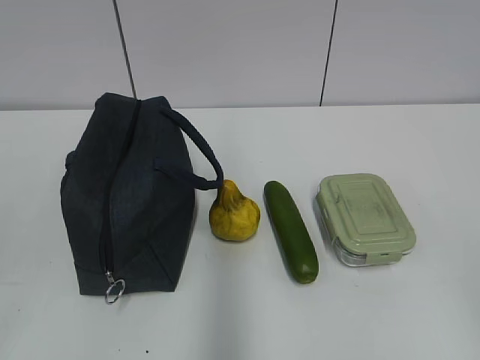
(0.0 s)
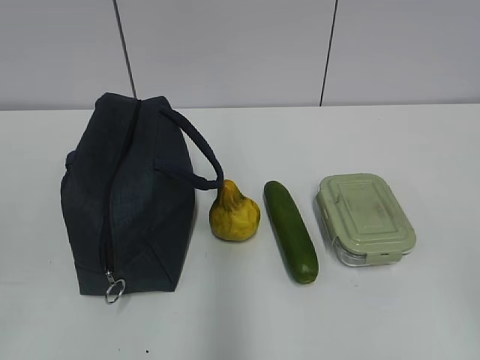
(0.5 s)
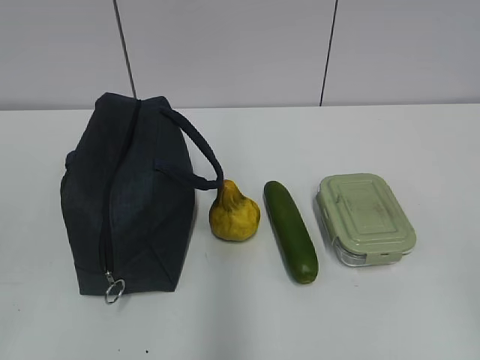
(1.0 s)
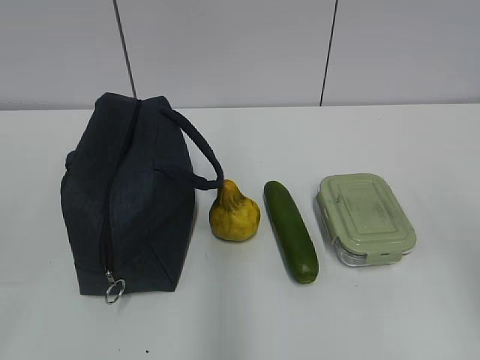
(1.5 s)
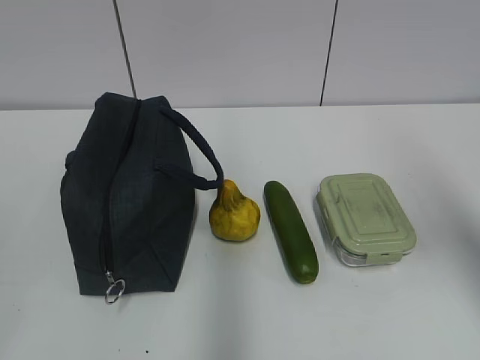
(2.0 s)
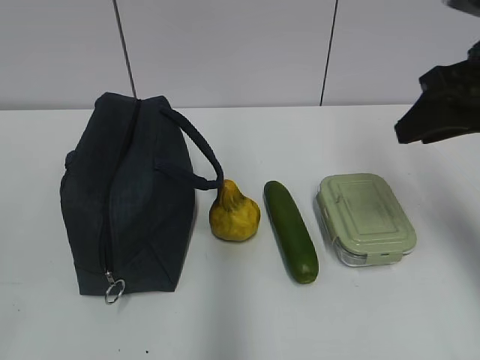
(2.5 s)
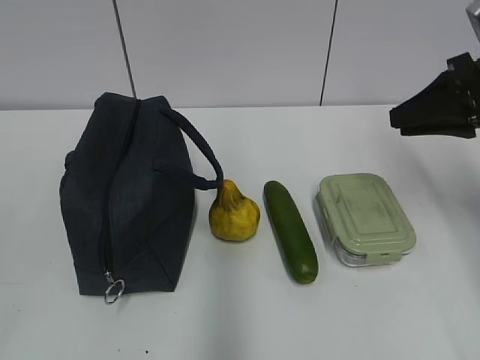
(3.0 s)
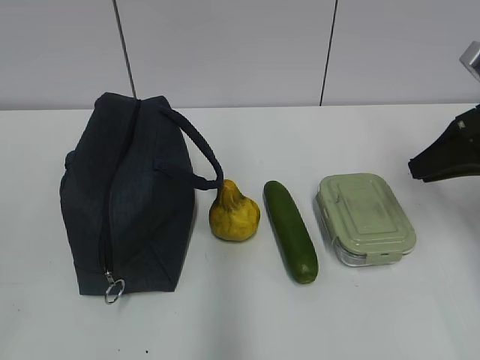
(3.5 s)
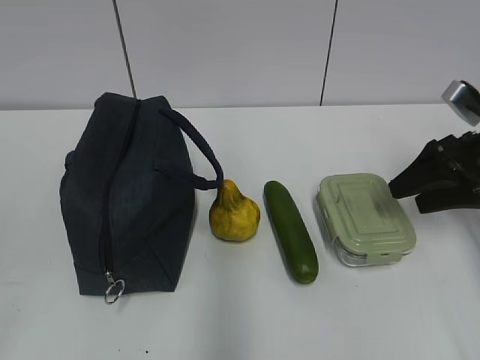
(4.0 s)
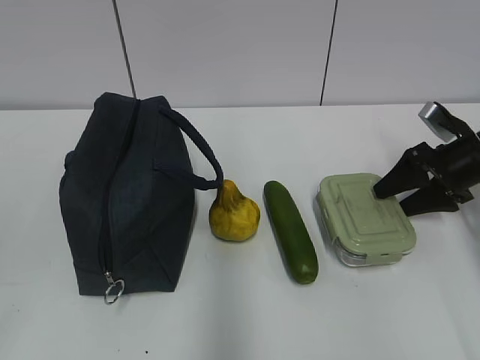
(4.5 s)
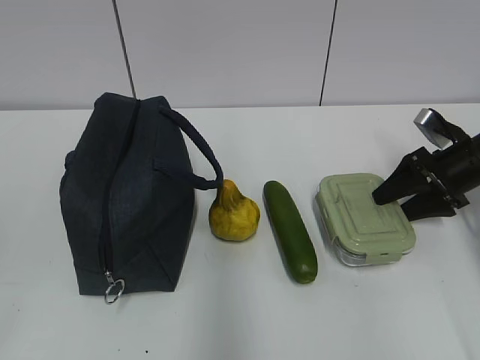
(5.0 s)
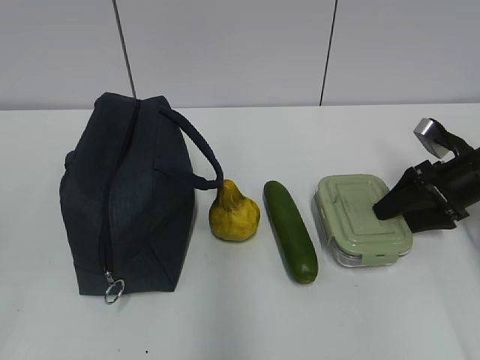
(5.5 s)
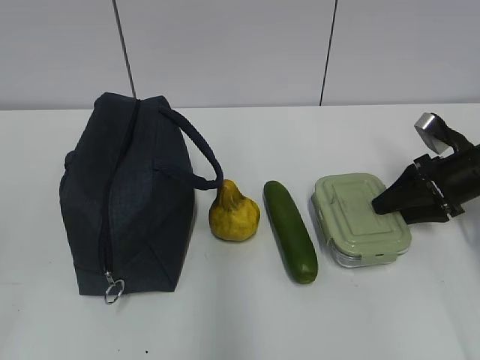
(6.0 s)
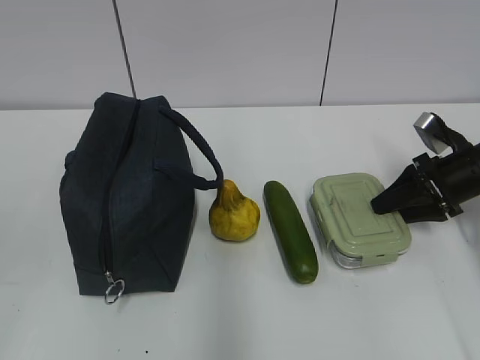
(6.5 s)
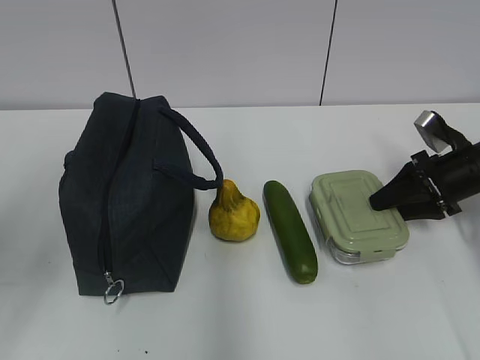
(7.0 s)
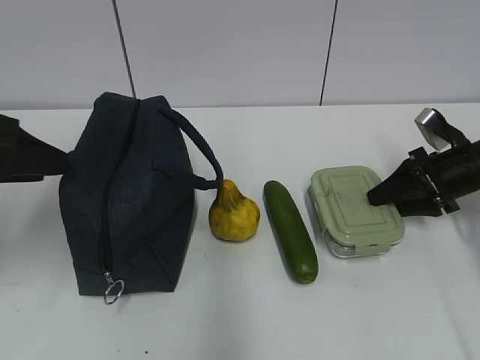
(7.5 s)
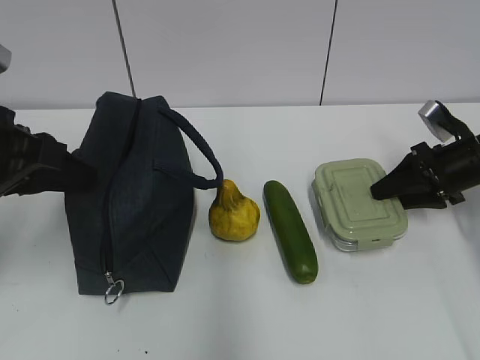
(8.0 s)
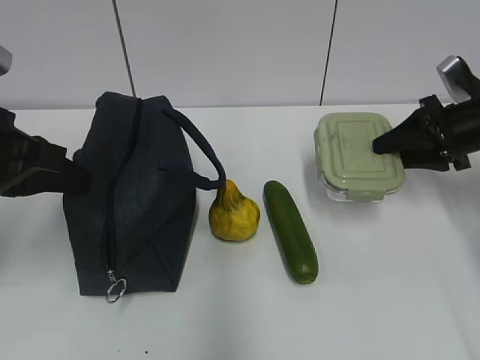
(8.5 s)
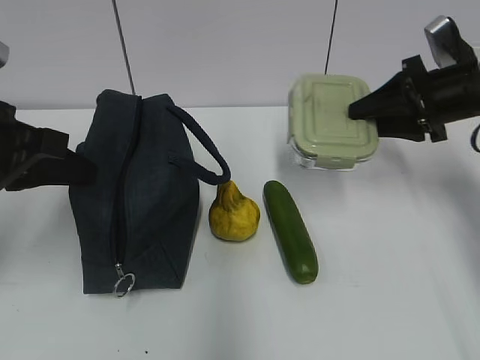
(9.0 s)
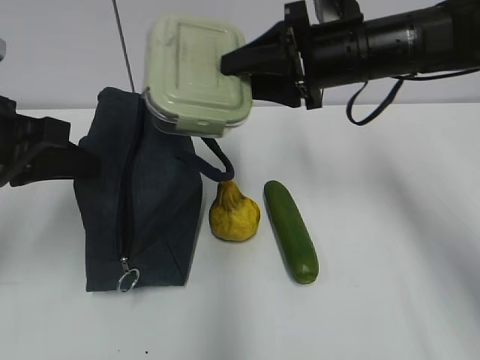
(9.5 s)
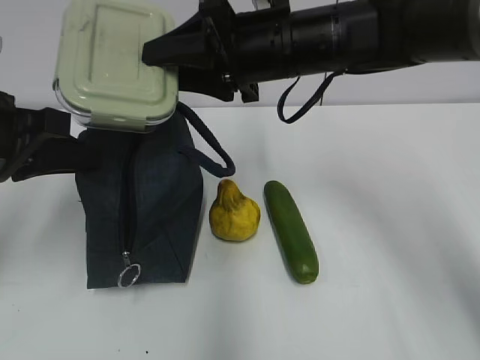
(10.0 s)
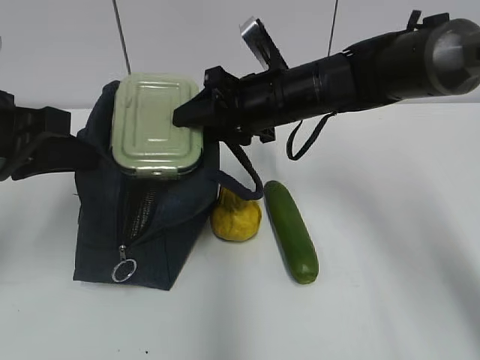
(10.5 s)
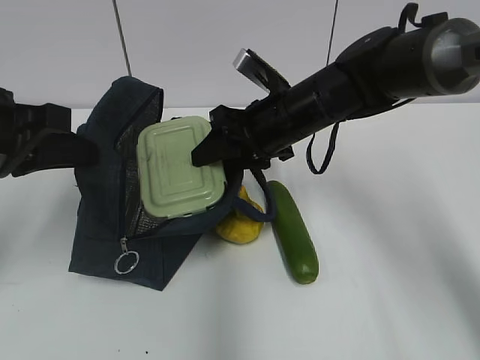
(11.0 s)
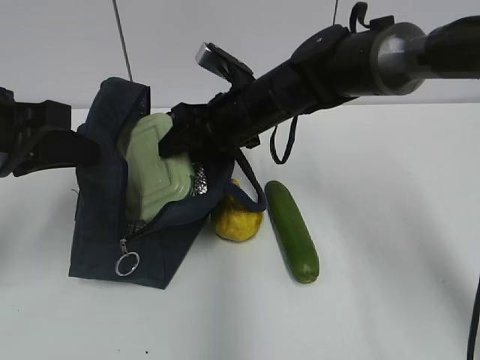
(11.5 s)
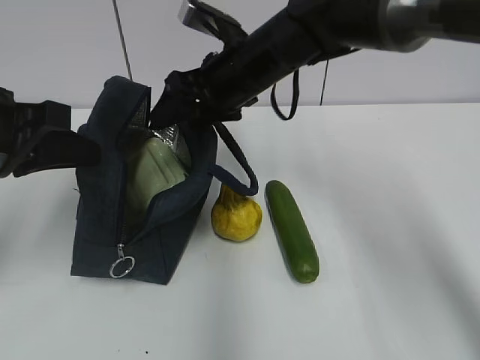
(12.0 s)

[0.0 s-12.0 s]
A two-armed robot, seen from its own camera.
Step, 0.0 to 6.5 s: Grab the lunch box with your right hand.
Step, 7.0 to 10.5 s: Grab the lunch bag with your left hand.
Step, 11.0 to 12.0 s: Place it into the bag with your right hand.
2.0 to 4.0 s: The right gripper goes approximately 25 cm forward and downward, and opens.
4.0 to 6.0 s: The right gripper travels downward by approximately 5 cm.
6.0 to 8.0 s: The left gripper travels forward by roughly 25 cm.
8.0 to 10.0 s: The right gripper travels to the left and upward by roughly 30 cm. Meanwhile the left gripper closes its fingers.

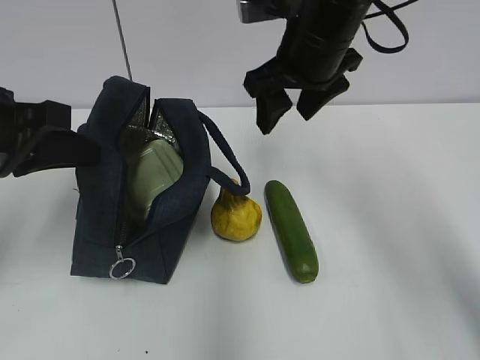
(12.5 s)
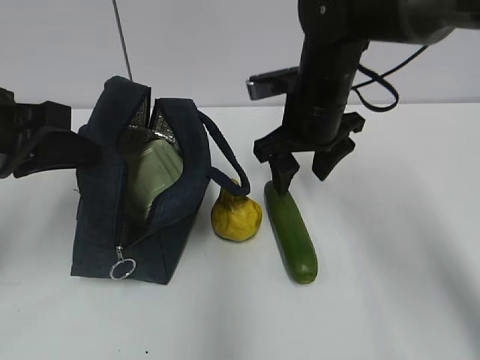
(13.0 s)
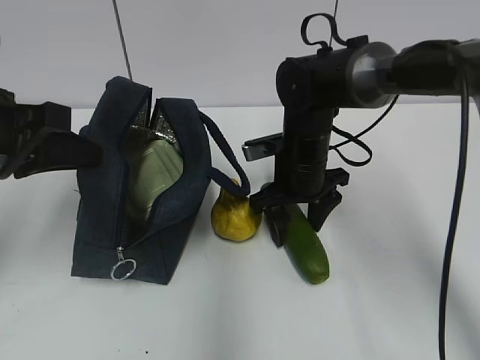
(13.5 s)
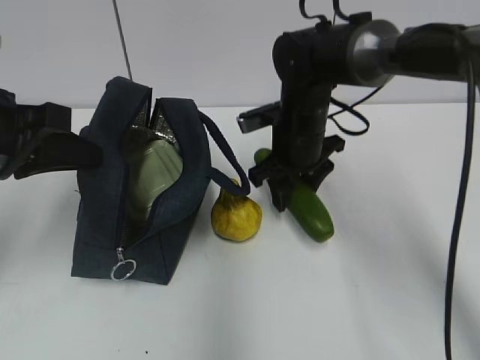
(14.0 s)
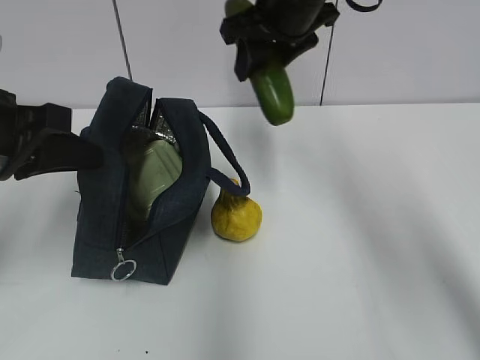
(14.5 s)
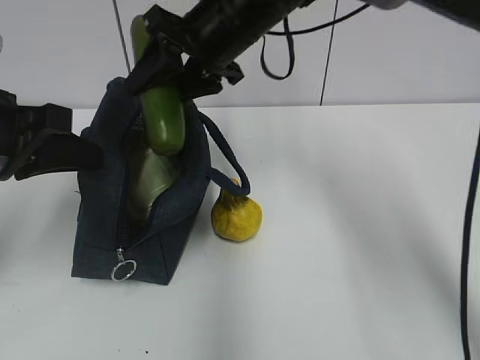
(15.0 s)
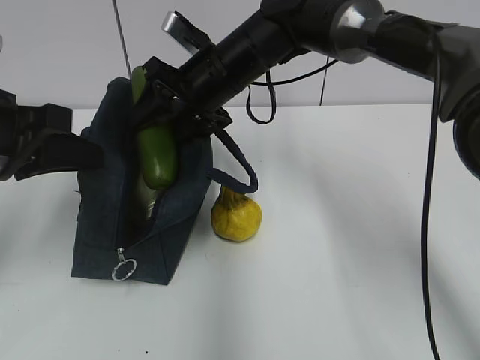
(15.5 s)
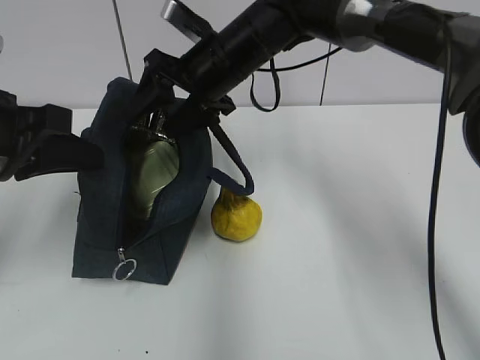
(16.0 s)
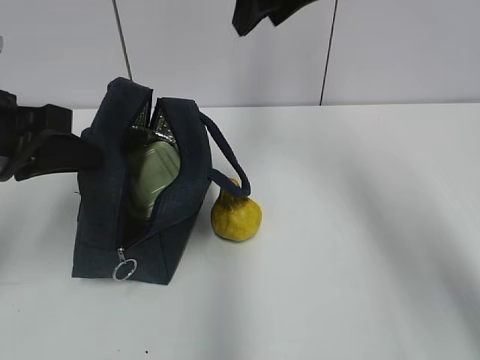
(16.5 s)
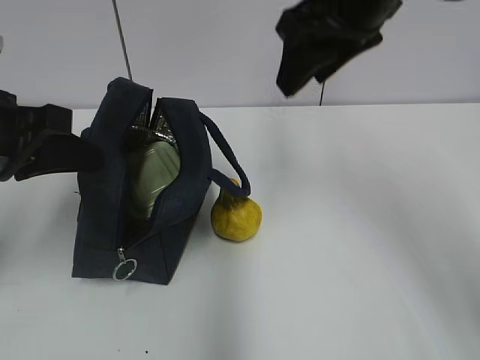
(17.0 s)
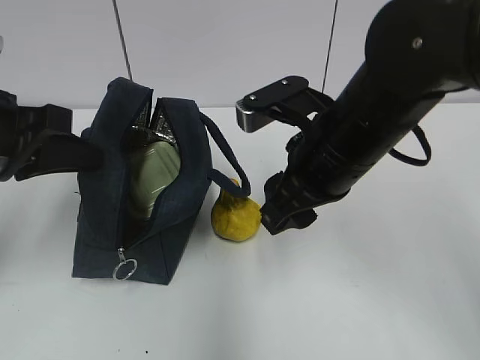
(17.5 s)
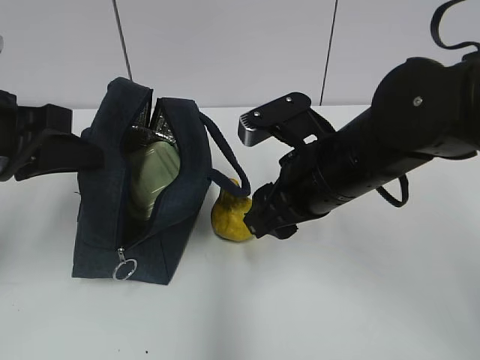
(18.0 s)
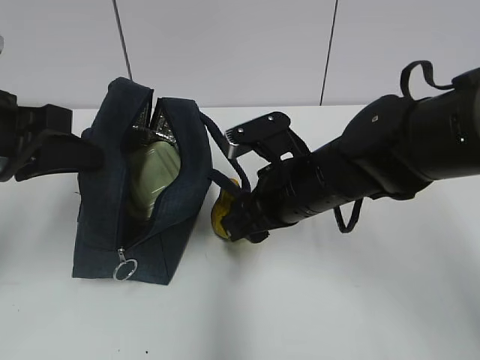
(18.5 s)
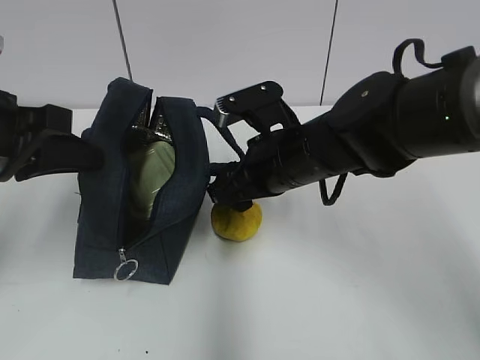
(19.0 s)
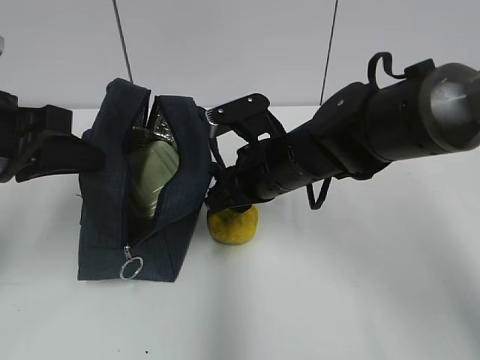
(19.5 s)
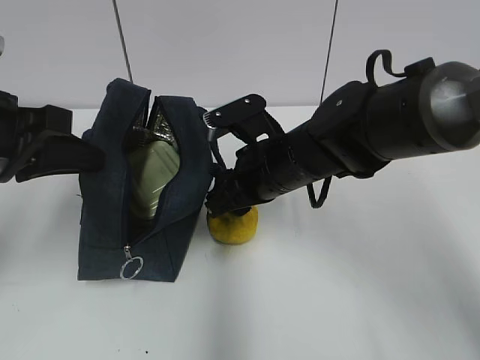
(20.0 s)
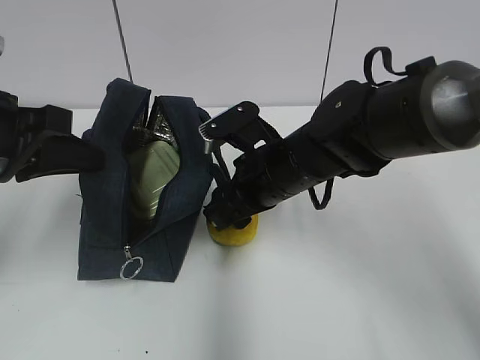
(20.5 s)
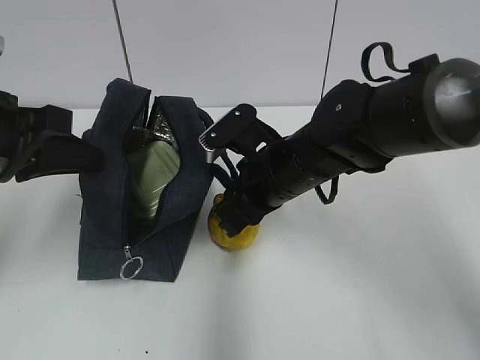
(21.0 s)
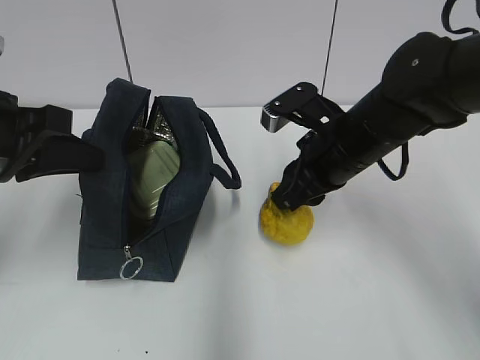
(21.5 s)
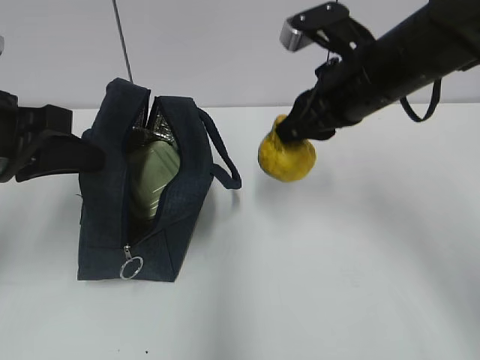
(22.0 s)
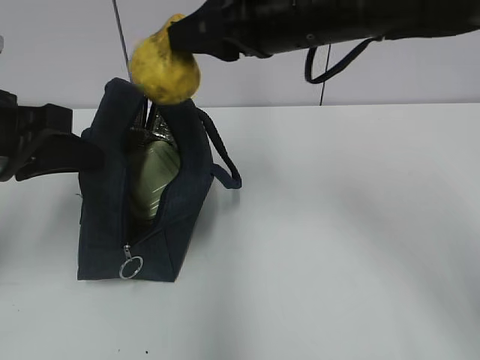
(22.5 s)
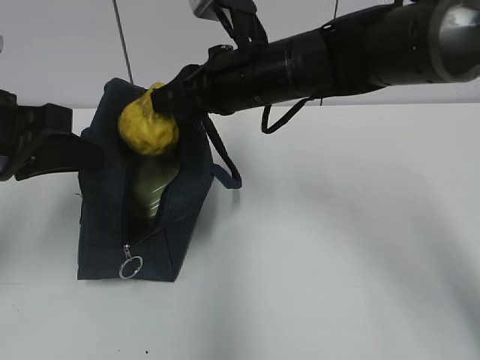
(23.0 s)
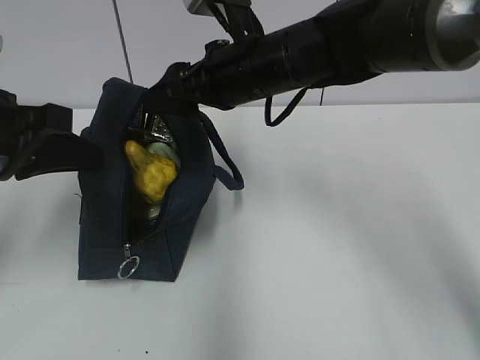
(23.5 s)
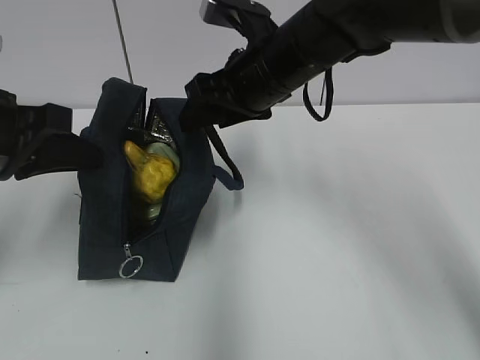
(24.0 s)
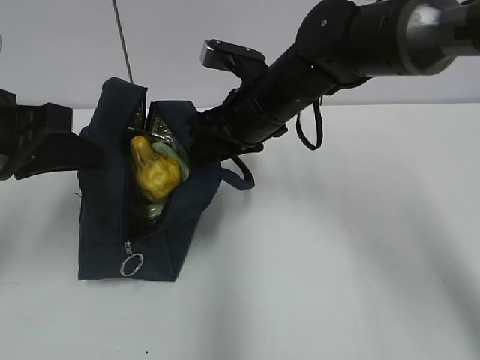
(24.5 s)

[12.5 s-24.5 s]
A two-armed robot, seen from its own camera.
Step, 12.5 to 13.5 s: Grab the cucumber with your right hand.
Step, 14.0 to 16.0 s: Place it into the bag with your right hand.
Step, 16.5 to 19.5 s: Grab the pear with your right hand.
Step, 20.0 to 23.5 s: Place it into the bag with your right hand.
Step, 24.0 to 24.5 s: Grab the lunch bag with your right hand.
12.5 to 14.5 s: The right gripper moves approximately 15 cm downward and comes back.
14.5 to 16.5 s: The right gripper moves upward, about 5 cm.
16.5 to 18.5 s: The right gripper shifts about 25 cm downward and backward.
18.5 to 20.5 s: The grippers move only a little.
20.5 to 22.5 s: The right gripper goes about 15 cm upward, and closes up.
22.5 to 24.5 s: The right gripper shifts about 10 cm downward and forward, and opens, then closes once more.

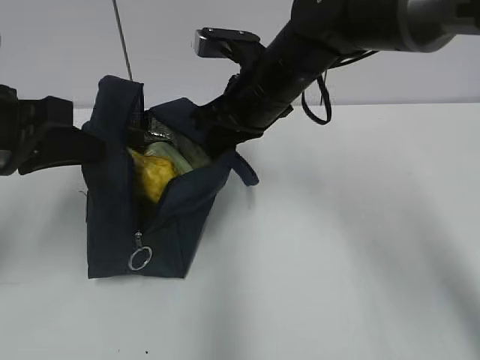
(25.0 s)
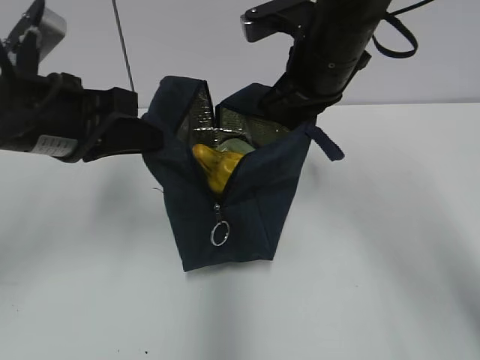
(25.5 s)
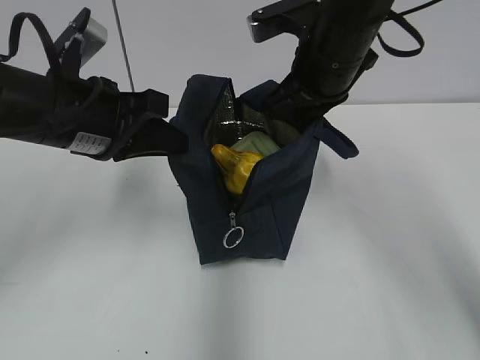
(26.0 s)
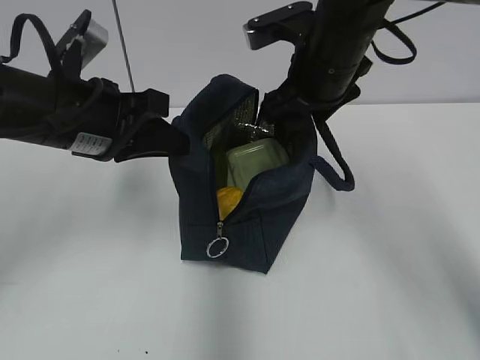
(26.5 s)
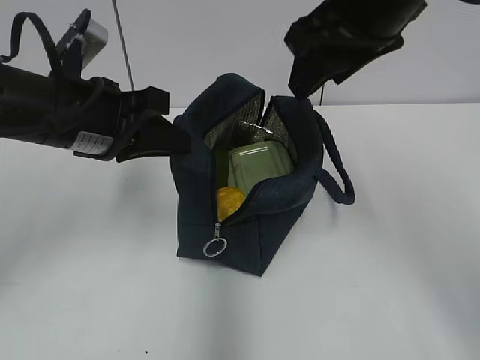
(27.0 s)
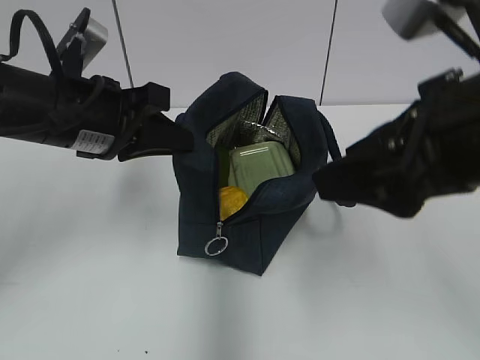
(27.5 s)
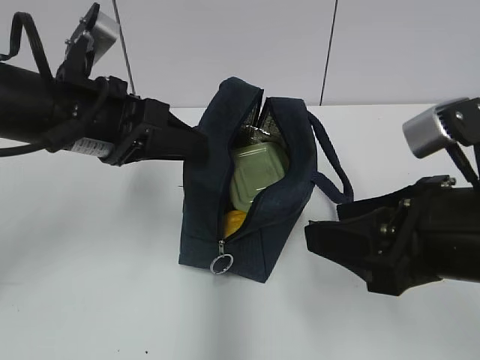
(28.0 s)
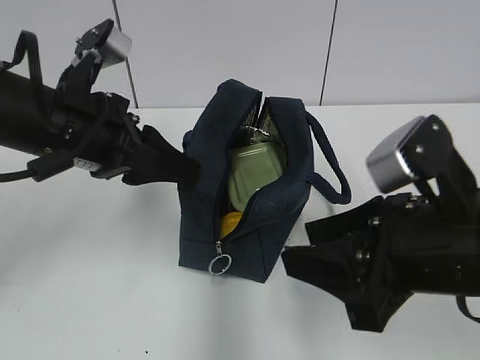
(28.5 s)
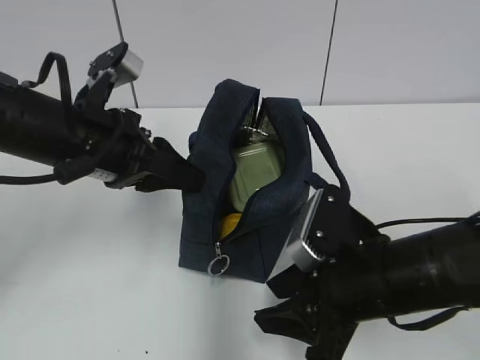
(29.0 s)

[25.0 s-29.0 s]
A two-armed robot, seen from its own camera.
Step, 25.5 to 26.5 s: Move the lunch bag to the right.
25.0 to 27.0 s: The right gripper shifts roughly 20 cm upward, backward and to the right, and opens its fingers, while the left gripper moves to the right, about 5 cm.
27.0 to 29.0 s: The left gripper opens up; the right gripper is displaced downward by approximately 20 cm.
